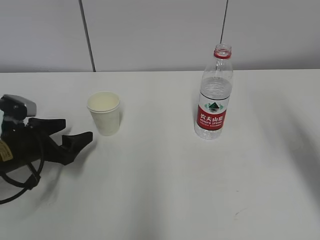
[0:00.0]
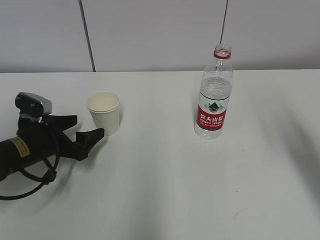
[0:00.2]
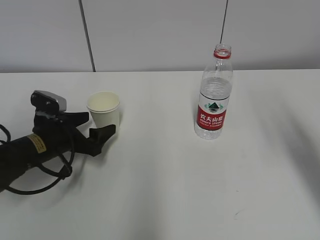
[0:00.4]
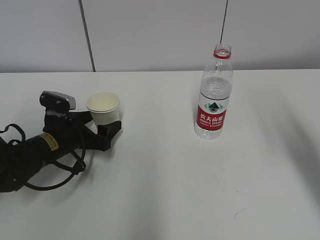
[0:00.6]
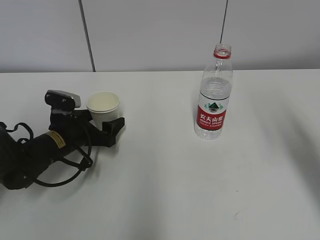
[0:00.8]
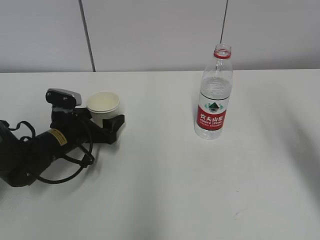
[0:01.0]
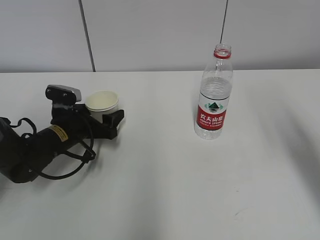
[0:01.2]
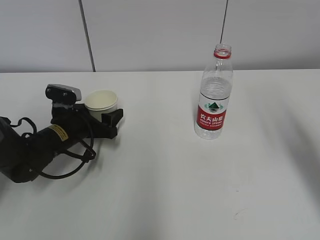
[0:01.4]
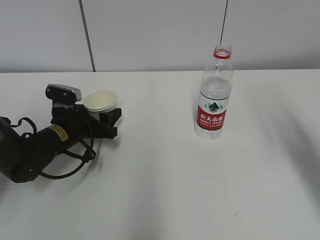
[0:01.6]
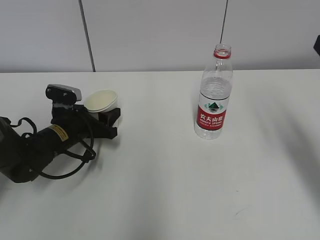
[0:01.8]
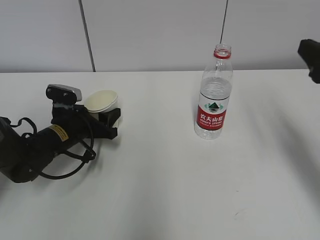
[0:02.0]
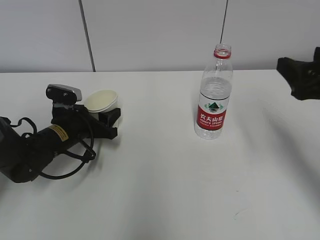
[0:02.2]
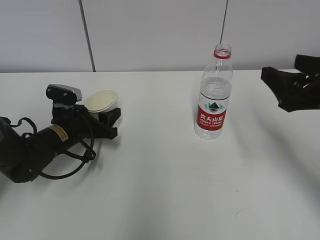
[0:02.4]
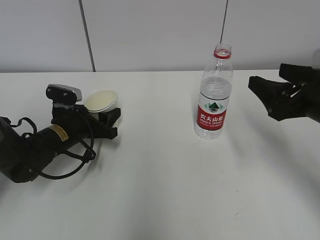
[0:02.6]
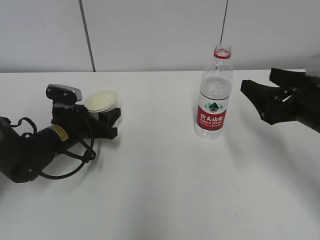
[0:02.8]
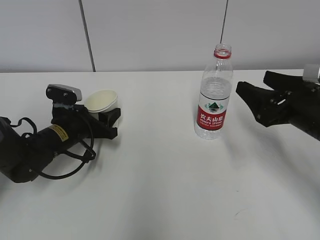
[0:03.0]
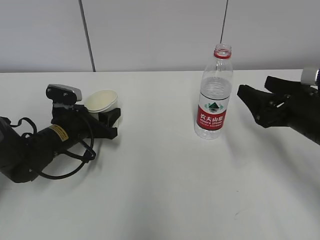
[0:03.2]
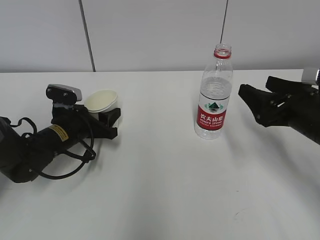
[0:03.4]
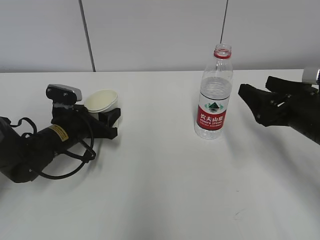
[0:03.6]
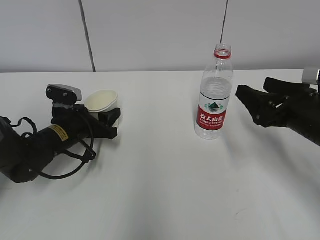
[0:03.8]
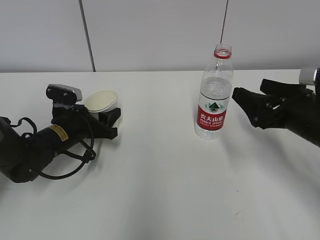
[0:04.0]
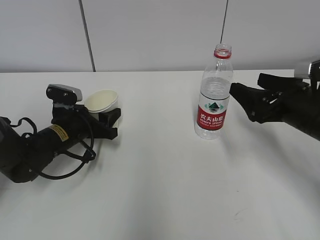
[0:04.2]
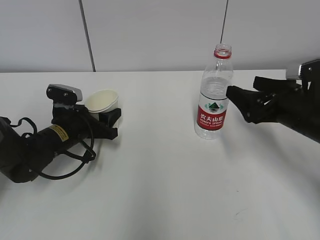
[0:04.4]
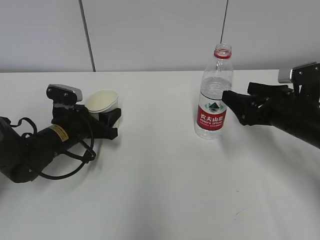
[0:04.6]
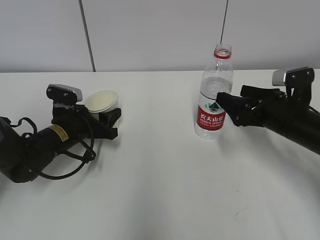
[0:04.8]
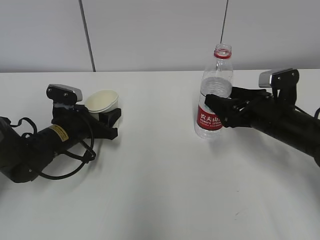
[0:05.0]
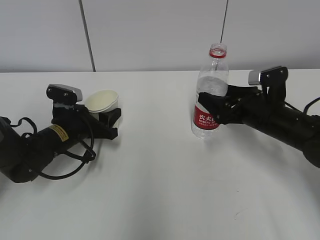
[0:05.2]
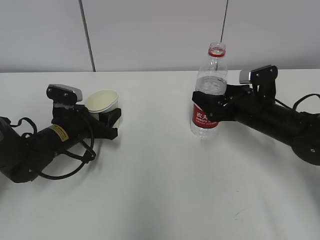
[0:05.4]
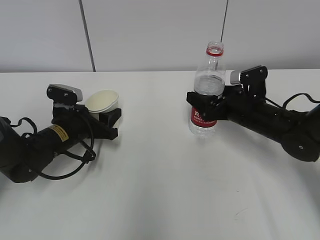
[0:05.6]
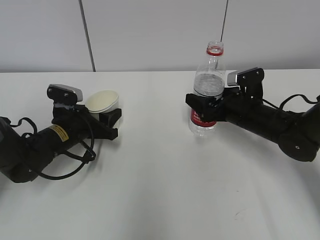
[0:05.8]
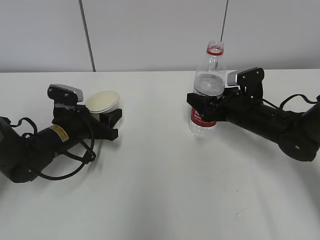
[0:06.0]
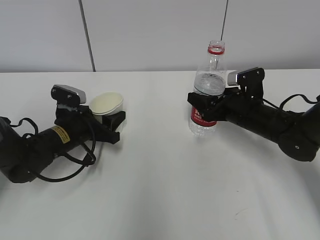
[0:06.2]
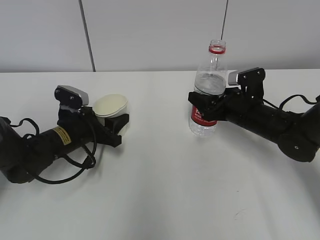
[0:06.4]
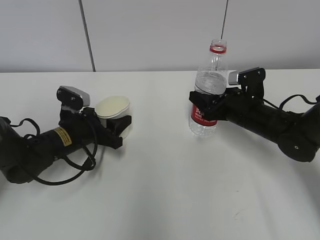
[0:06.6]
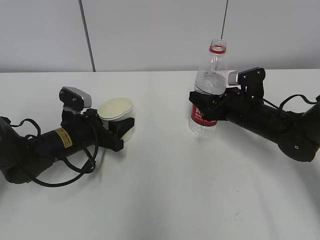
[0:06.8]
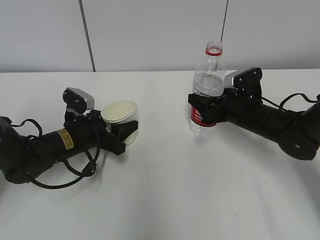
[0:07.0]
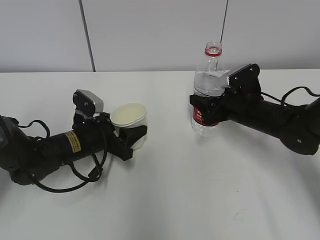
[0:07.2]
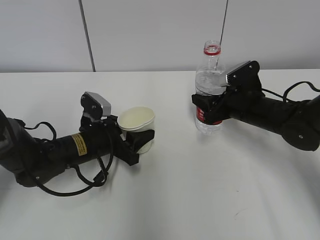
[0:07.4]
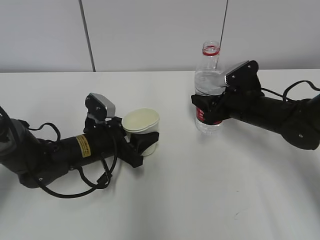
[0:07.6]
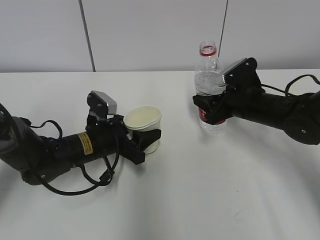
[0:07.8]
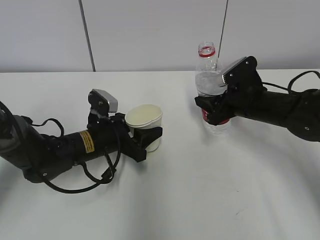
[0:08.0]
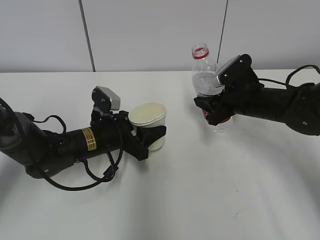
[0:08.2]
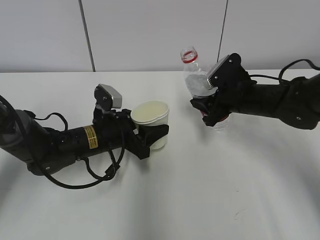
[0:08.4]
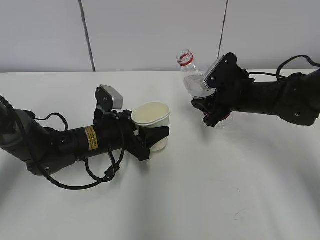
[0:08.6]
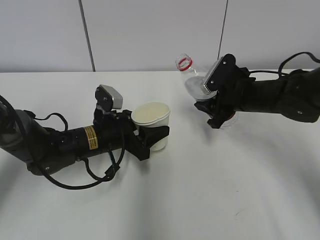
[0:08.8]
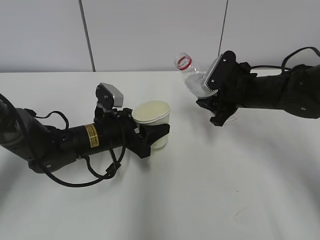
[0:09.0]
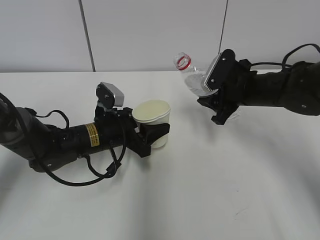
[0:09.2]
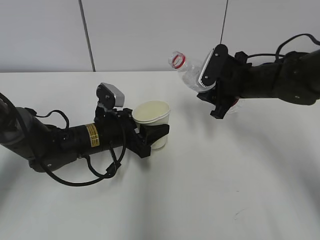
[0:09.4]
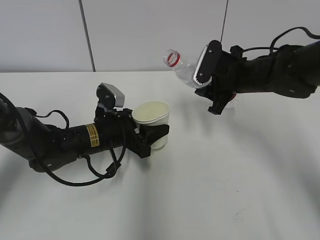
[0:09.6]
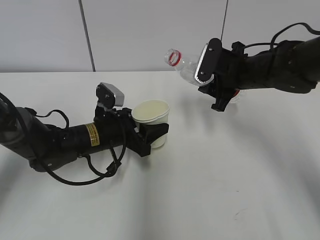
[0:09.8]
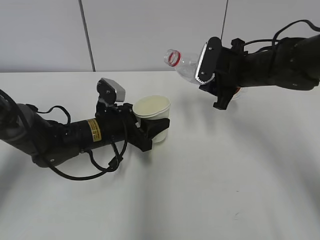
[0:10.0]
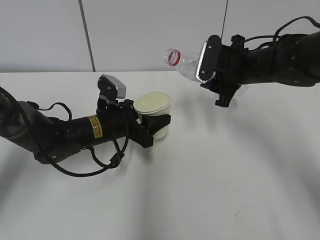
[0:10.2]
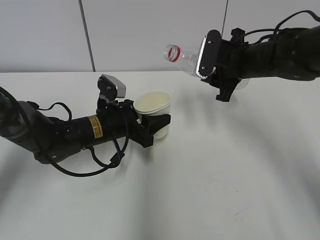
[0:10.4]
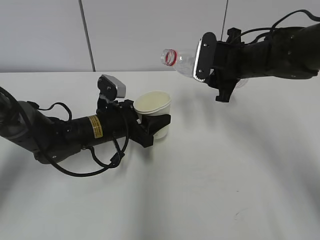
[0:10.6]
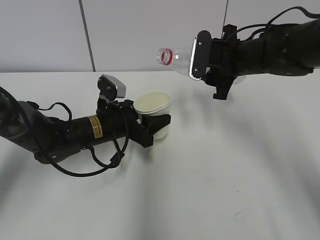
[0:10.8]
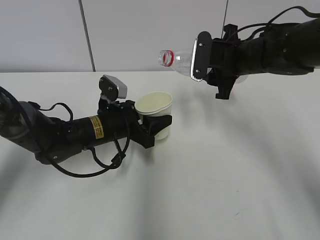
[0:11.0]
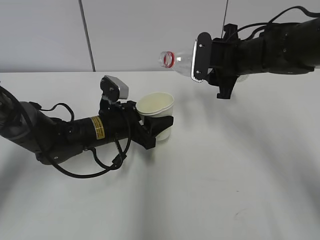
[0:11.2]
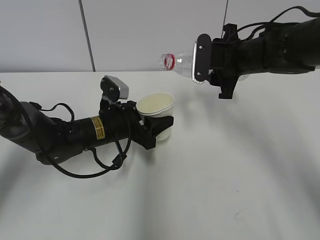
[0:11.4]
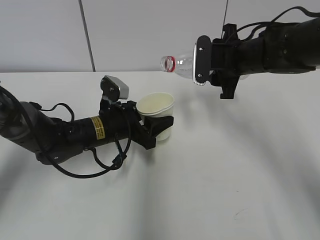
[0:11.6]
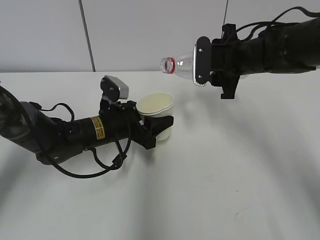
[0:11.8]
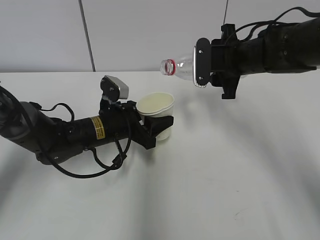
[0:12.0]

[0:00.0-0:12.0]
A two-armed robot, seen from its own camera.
Step, 0:00.0 to 0:04.2: Grab the paper cup with the left hand.
Step, 0:04.4 to 0:05.4: Grab the water bottle with the right hand.
Step, 0:05.6 to 0:10.2: Lift the paper cup with the left hand.
0:00.0 to 0:01.6: The left gripper shifts approximately 10 cm to the right and forward, and closes up.
0:01.6 to 0:03.0: The right gripper is displaced downward and forward by roughly 10 cm.
0:03.0 to 0:04.4: The grippers move only a little.
0:04.4 to 0:06.0: The right gripper goes roughly 10 cm forward and downward, and closes its fingers.
0:06.0 to 0:07.6: The left gripper moves to the right, approximately 5 cm. Meanwhile the right gripper closes up.
0:09.0 to 0:10.4: The right gripper moves upward, some 5 cm.
0:10.4 to 0:12.0: The grippers stay close to where they were, moving slightly.

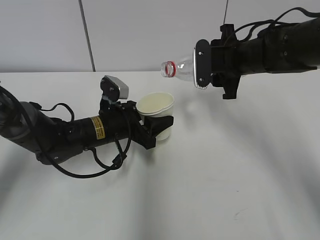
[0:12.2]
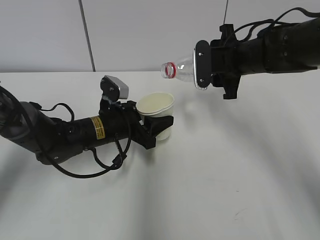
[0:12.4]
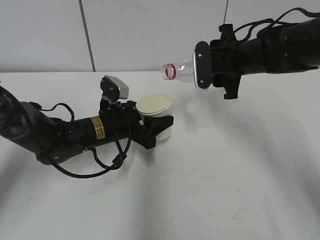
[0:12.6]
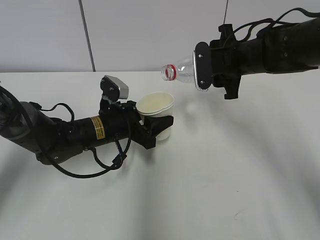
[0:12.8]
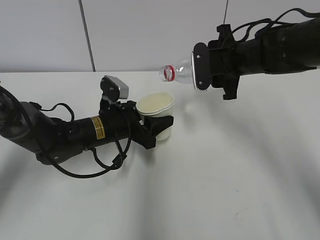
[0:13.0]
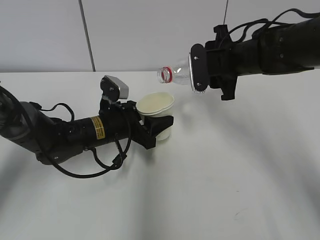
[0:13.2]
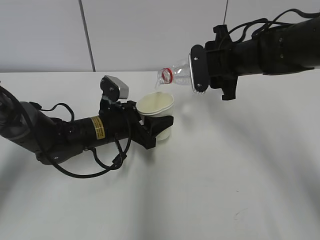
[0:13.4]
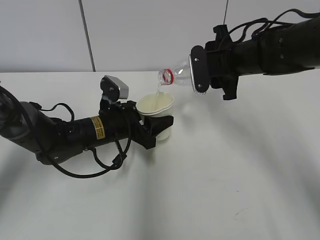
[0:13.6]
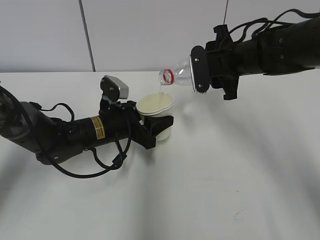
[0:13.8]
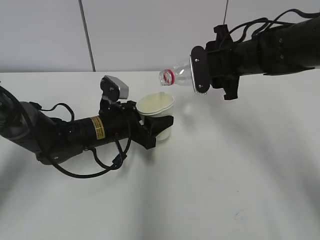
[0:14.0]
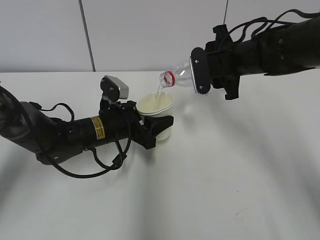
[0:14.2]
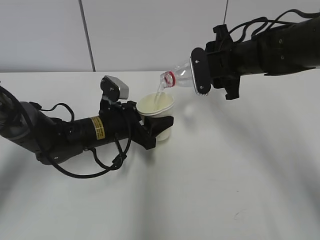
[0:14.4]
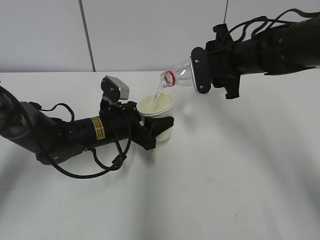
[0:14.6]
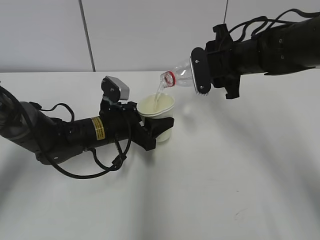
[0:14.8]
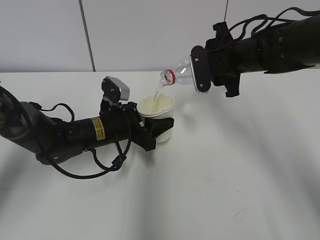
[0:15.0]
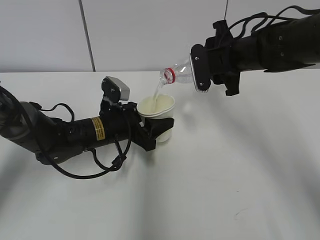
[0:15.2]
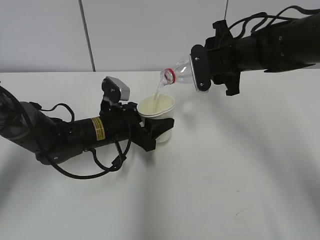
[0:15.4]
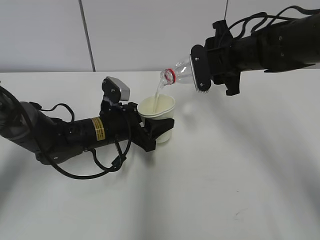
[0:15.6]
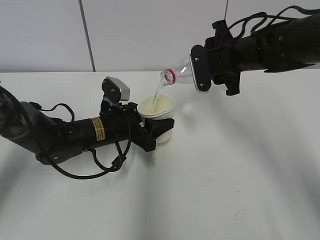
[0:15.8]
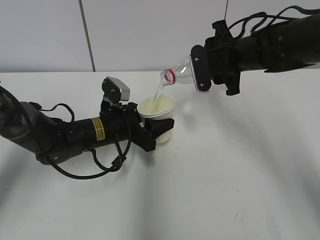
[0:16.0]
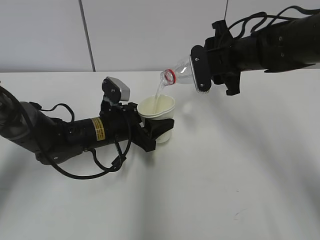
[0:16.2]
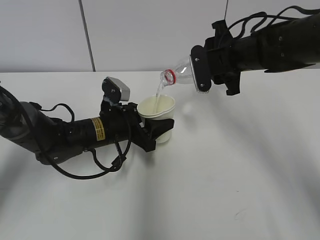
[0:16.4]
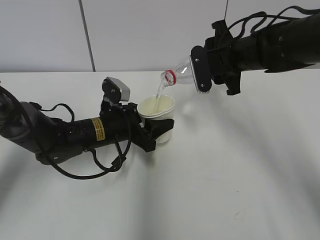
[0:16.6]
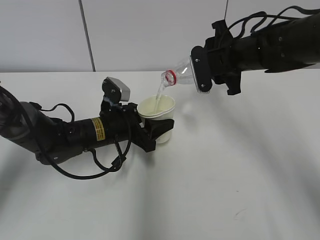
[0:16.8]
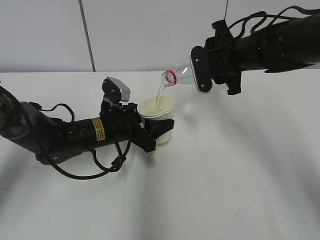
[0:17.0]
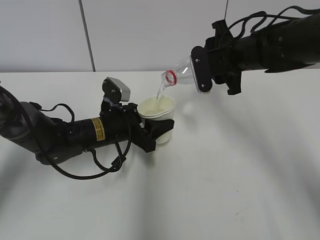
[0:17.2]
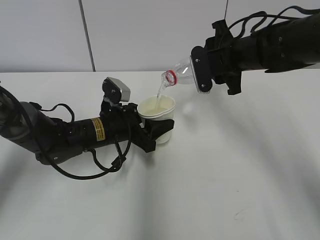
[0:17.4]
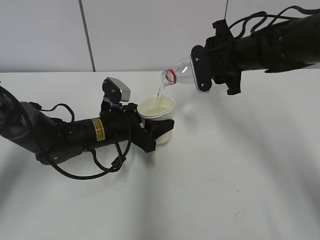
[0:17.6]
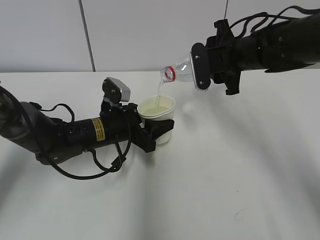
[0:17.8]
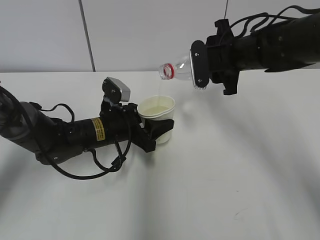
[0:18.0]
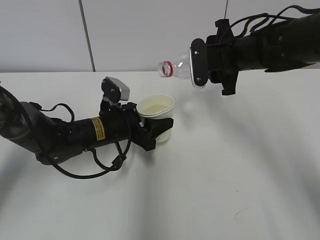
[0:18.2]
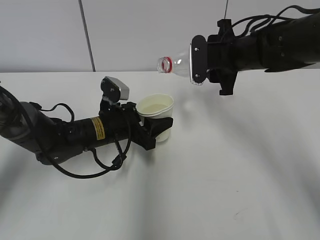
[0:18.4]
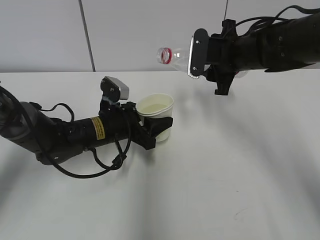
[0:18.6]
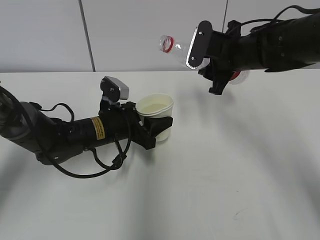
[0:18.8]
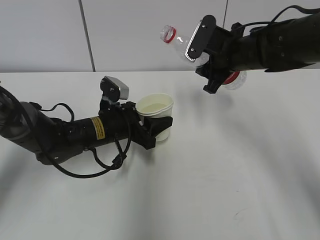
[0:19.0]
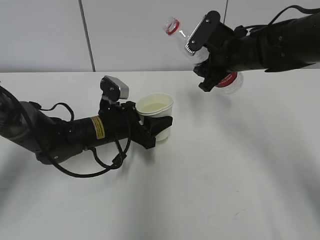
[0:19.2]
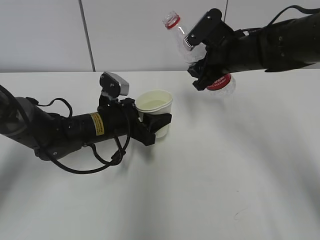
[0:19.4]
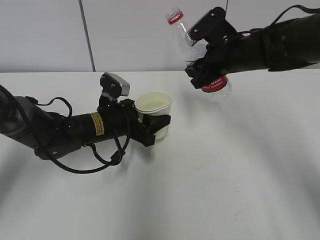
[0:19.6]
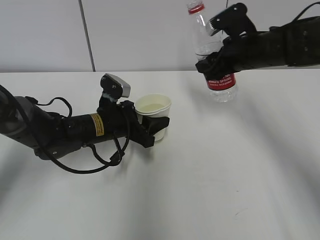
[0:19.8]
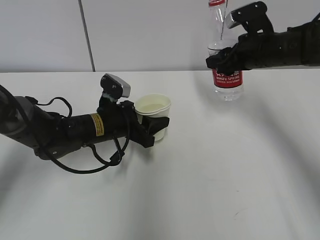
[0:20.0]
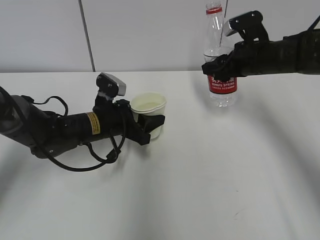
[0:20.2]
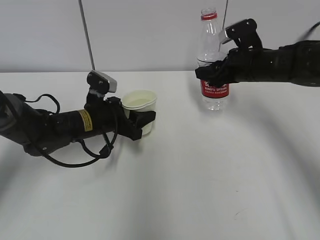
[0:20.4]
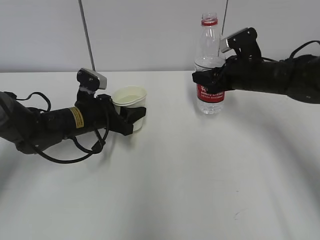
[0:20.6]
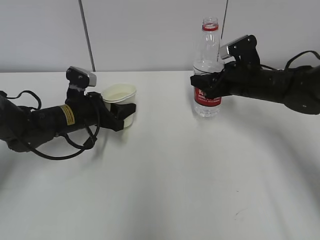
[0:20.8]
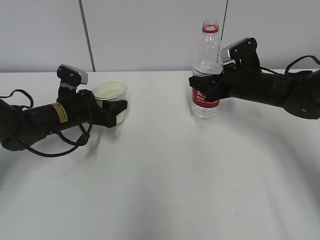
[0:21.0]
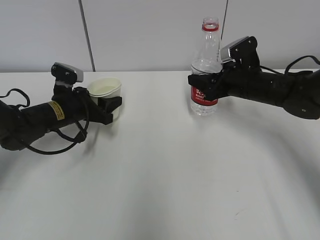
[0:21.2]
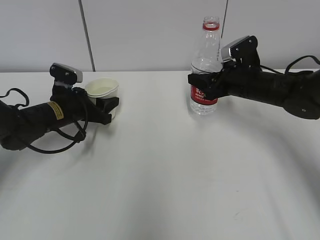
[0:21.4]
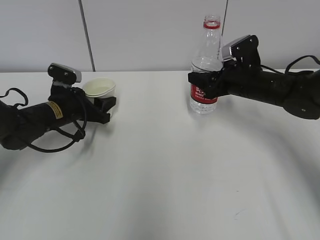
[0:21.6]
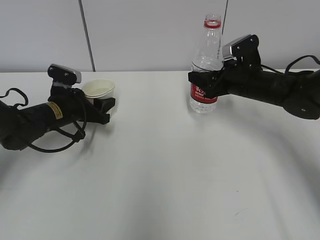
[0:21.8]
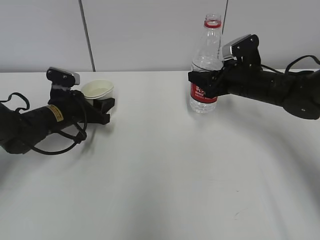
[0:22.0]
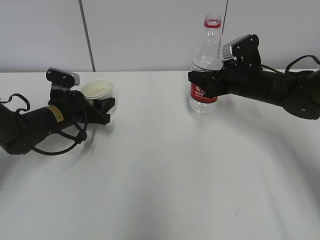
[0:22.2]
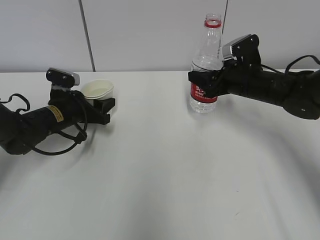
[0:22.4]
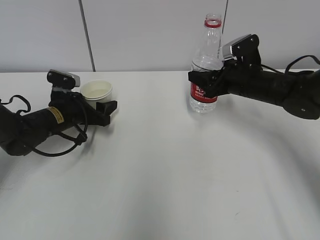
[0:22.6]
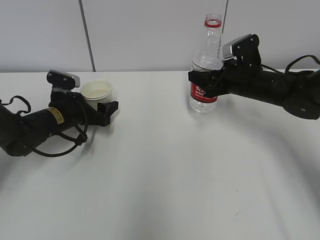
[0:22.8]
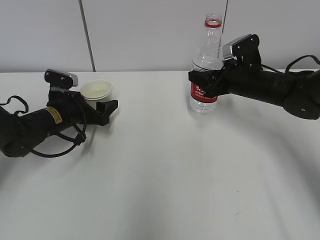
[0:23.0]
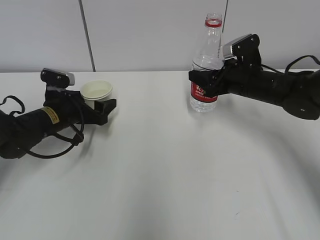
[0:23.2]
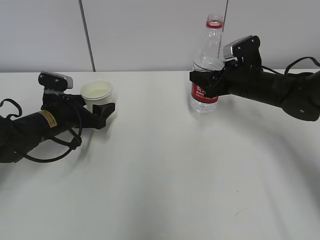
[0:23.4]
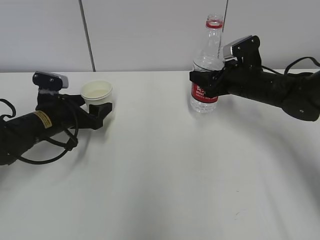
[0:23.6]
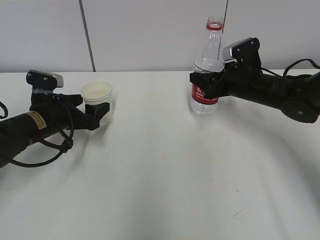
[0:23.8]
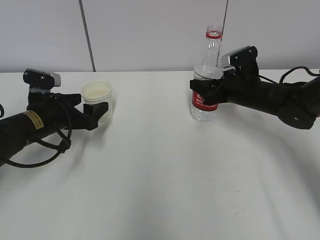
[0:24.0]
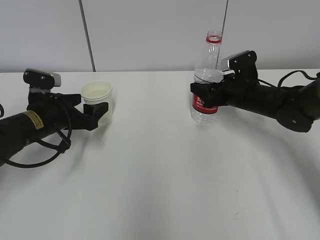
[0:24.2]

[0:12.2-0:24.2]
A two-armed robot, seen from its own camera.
Step, 0:12.2 to 0:14.2: Pour water with the right hand.
Step, 0:14.4 to 0:16.6: Collect water with the right hand.
Step, 0:16.8 to 0:17.8: Place the paper cup with the left hand.
Step, 0:18.0 to 0:21.6: Place the water bottle with the right hand.
0:12.2 to 0:13.8: The grippers make only small movements.
0:13.8 to 0:15.2: The two grippers keep their place.
0:15.2 to 0:16.6: Neither gripper changes place.
0:16.6 to 0:18.2: The grippers make only small movements.
0:19.8 to 0:21.2: The left gripper heads to the left, covering some 10 cm. Meanwhile the right gripper heads downward, covering about 5 cm.
0:21.2 to 0:22.6: The grippers stay close to where they were, moving slightly.
0:22.6 to 0:24.2: The left gripper travels backward by about 5 cm.
